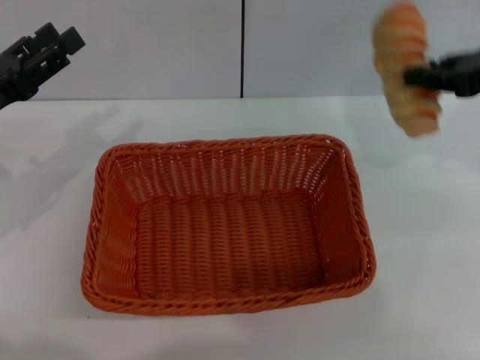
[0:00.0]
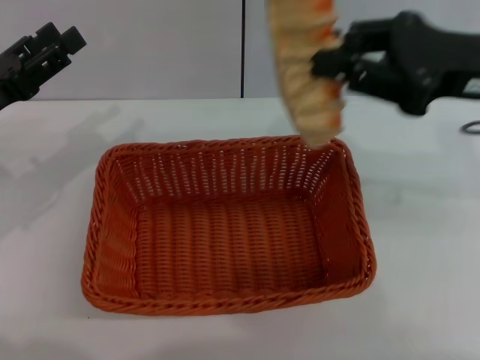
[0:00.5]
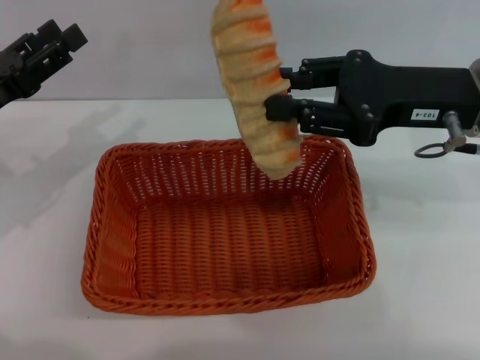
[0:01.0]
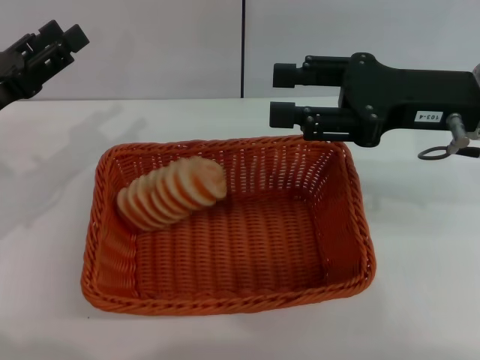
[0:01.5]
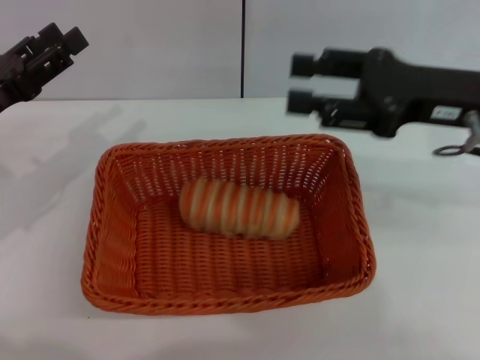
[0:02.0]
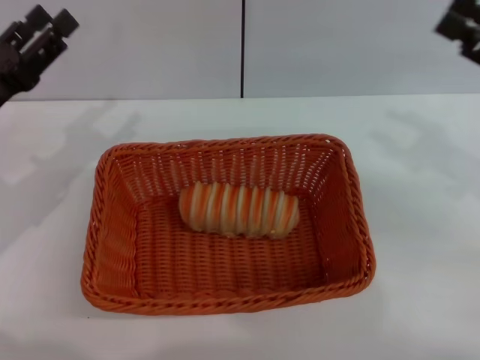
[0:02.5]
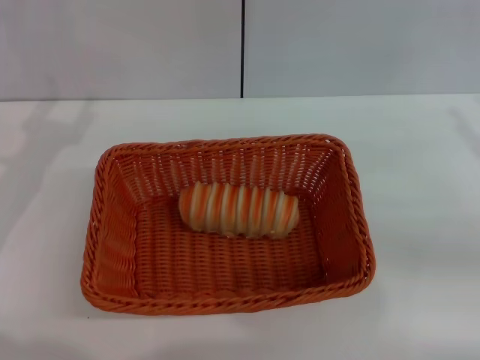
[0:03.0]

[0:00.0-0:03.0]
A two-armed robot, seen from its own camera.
Step, 0:00.0 to 0:01.5: Place the long bread into the light basket with the right gripper.
0:00.0 to 0:01.5: The right gripper heads to the left, covering about 10 cm, and opens its fingers.
0:01.5 to 0:03.0: The right gripper heads to the right, covering approximately 15 cm.

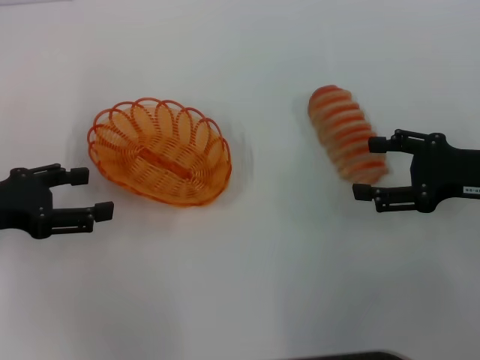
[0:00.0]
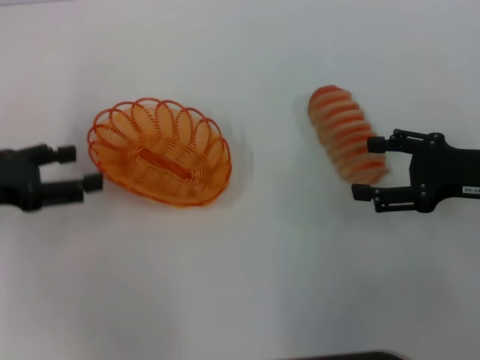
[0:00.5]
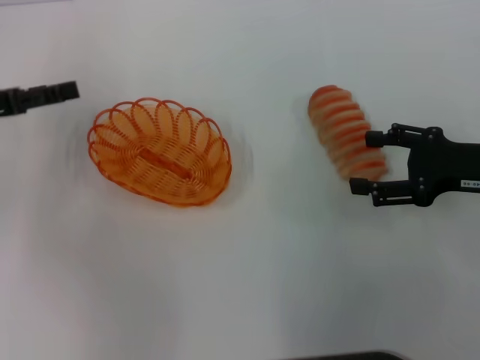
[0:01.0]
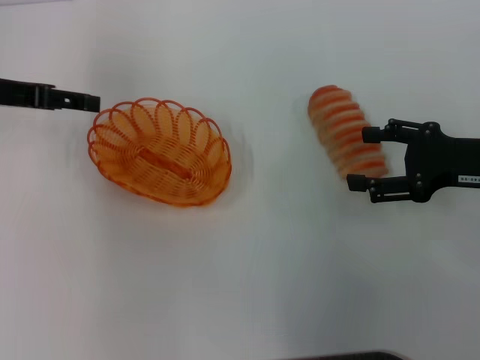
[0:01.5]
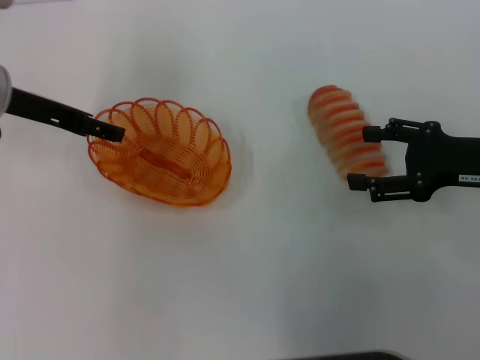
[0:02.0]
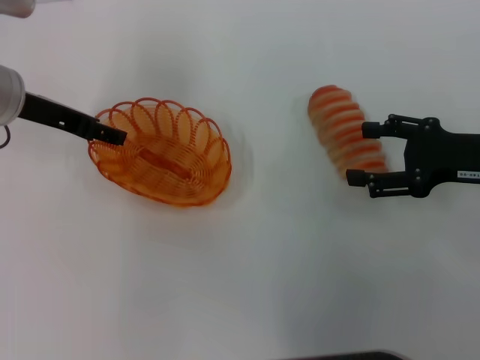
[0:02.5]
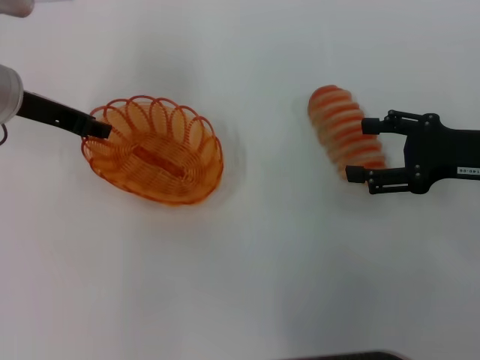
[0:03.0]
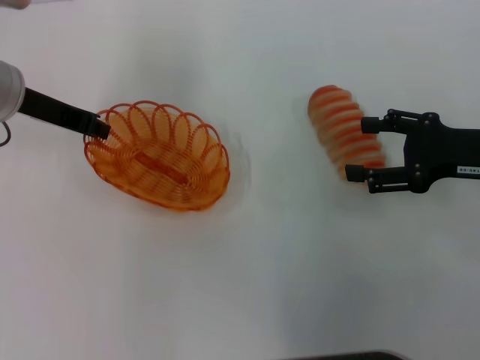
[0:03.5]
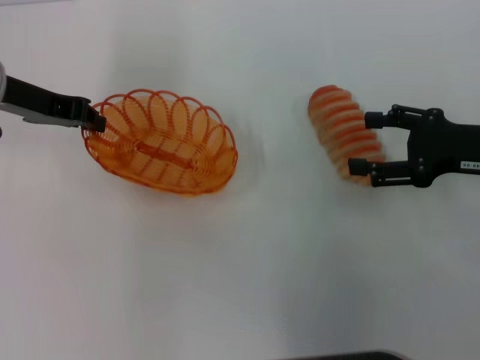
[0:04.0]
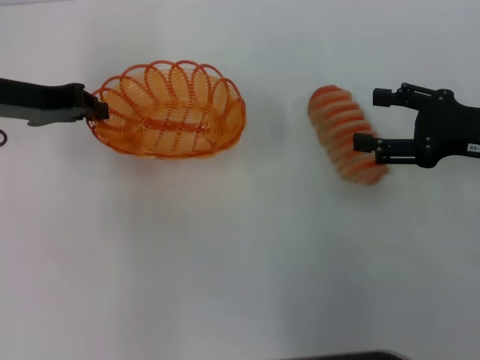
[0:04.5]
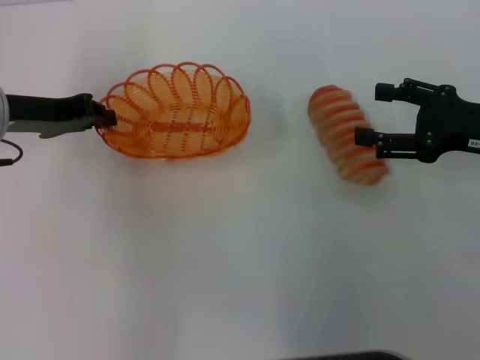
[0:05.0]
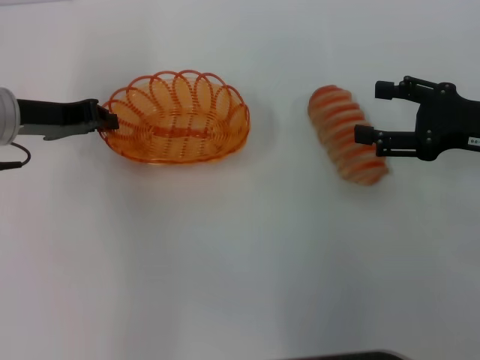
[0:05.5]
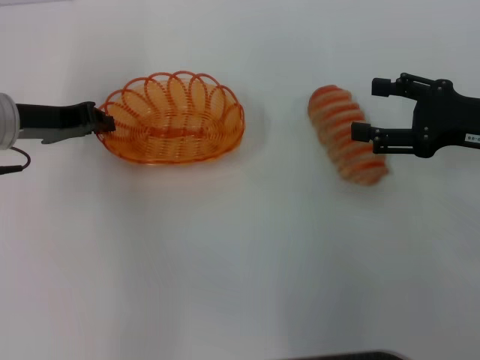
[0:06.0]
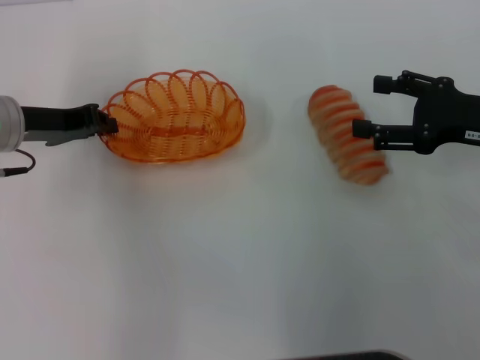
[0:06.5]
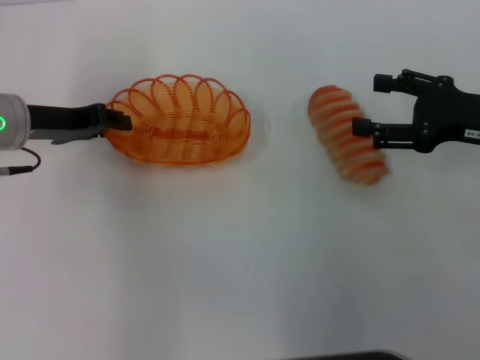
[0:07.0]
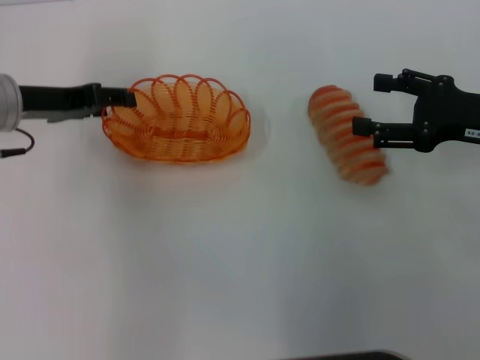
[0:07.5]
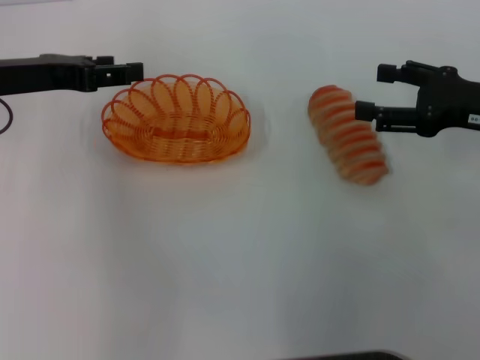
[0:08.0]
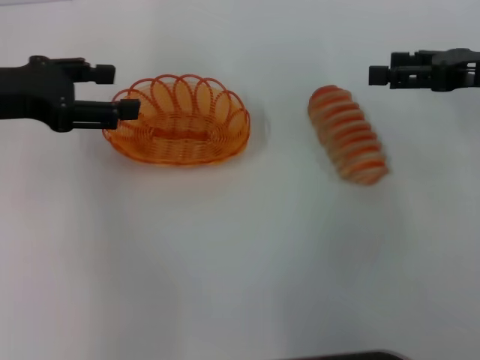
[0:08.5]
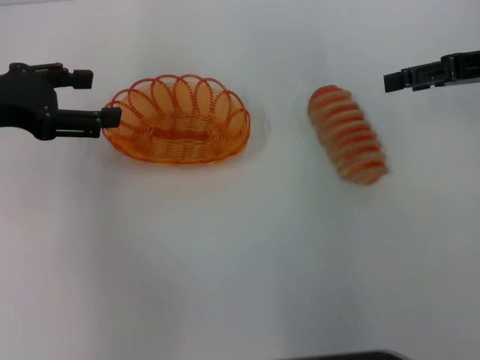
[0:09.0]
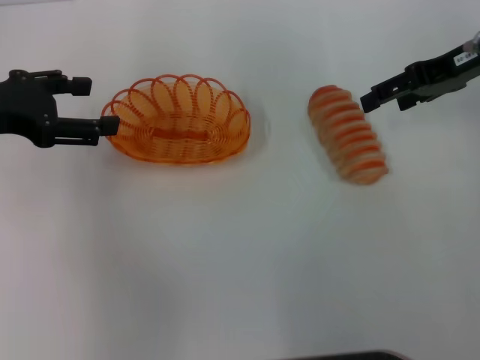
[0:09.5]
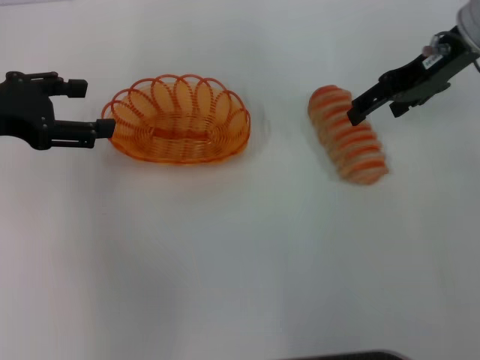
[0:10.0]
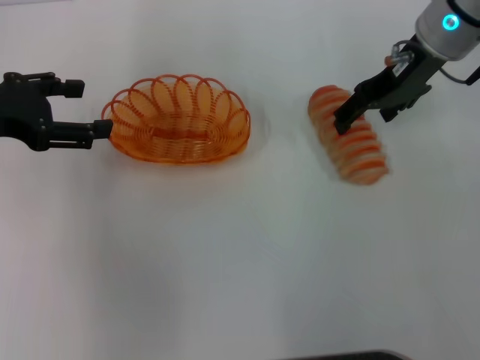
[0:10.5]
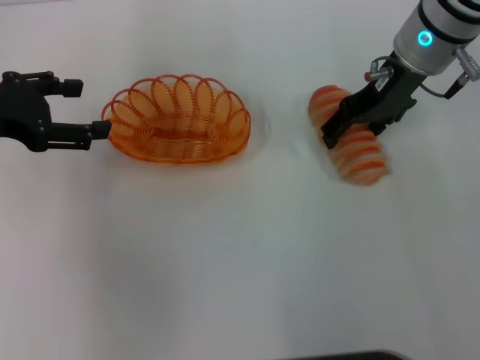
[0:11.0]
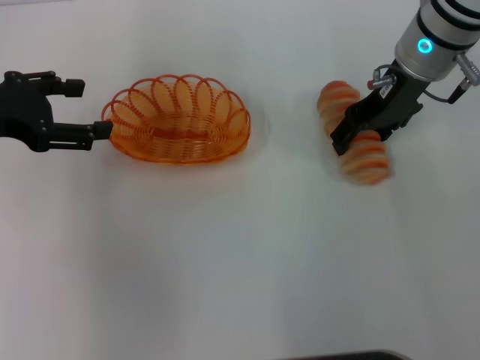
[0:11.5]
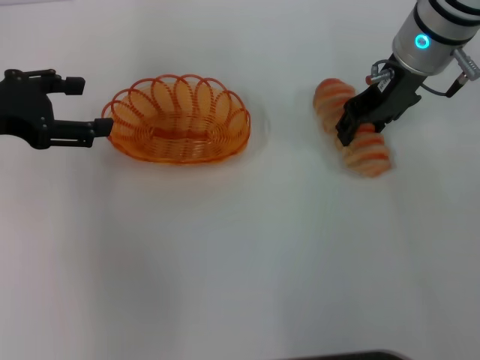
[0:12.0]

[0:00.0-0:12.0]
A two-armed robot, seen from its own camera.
Step, 0:00.0 to 0:04.0: Pick up the basket with the left gripper.
Step, 0:05.0 to 0:07.5: Place the basket in the center of view with the left gripper.
0:00.0 to 0:02.0: The left gripper goes about 15 cm forward and to the right.
0:02.0 to 0:04.0: The left gripper closes its fingers.
0:04.0 to 0:06.0: The left gripper moves downward, approximately 5 cm.
0:06.0 to 0:08.0: The left gripper opens its fingers.
0:08.0 to 0:10.0: The left gripper ends up some 5 cm from where it was. Meanwhile the right gripper travels forward, upward and to the left by some 15 cm.
0:10.0 to 0:12.0: The right gripper moves to the left, approximately 5 cm, and closes.

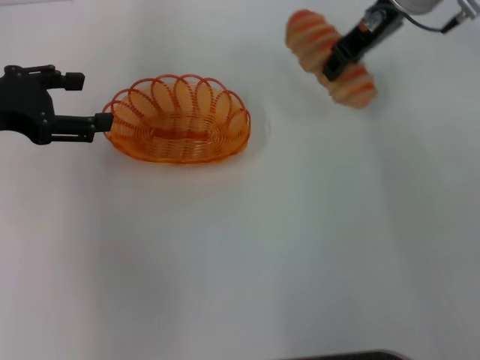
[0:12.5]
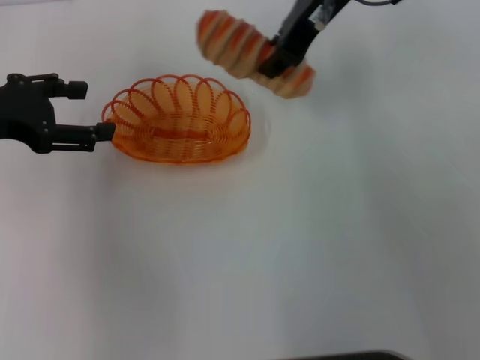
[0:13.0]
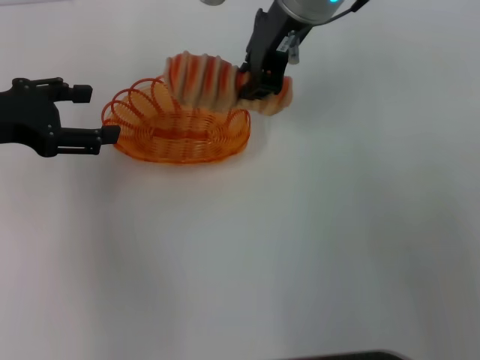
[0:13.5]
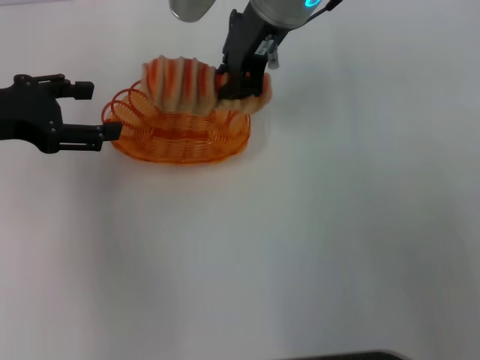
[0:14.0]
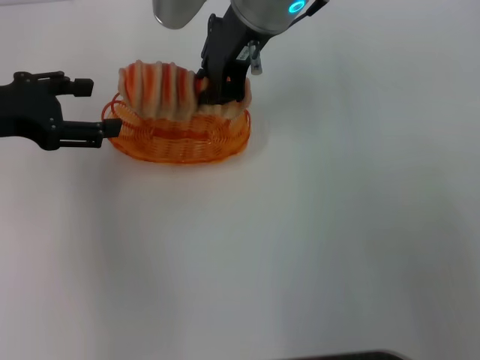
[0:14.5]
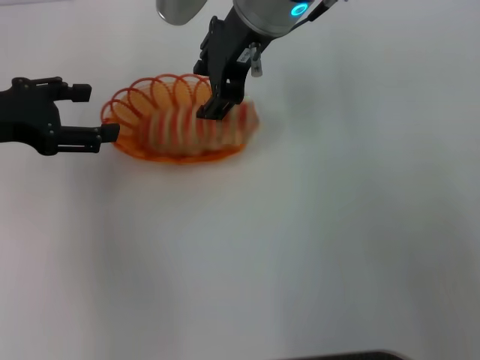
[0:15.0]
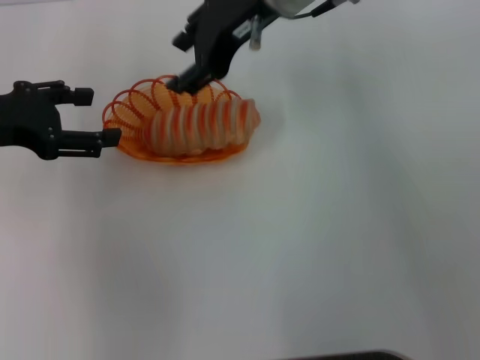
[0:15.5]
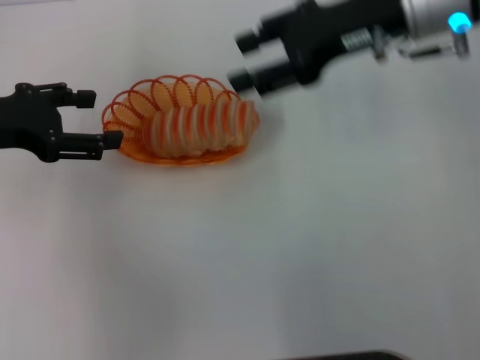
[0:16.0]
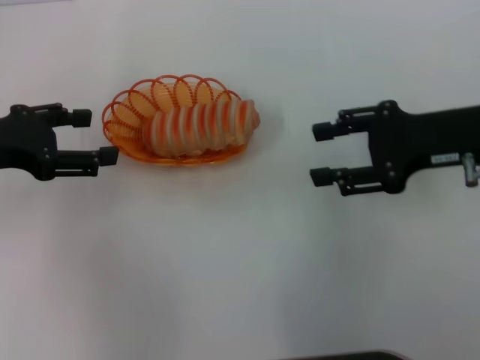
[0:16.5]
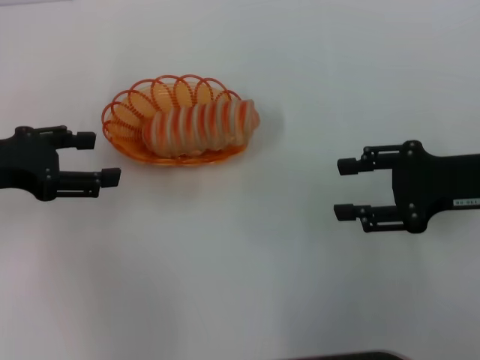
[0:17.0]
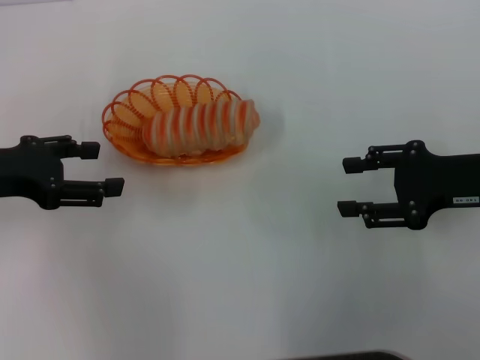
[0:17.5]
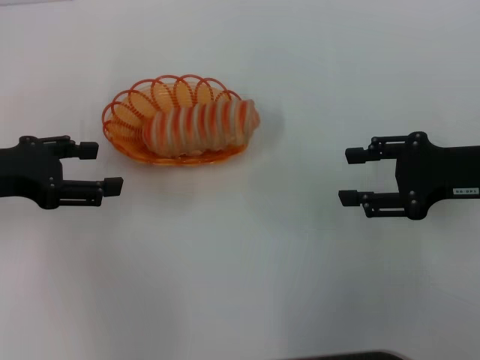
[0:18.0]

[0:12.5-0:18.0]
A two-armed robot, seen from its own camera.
Step, 0:12.5 to 0:15.5: Place the long bread into the basket with the right gripper.
0:12.5 to 0:14.5: The right gripper travels to the left by roughly 15 cm.
0:14.5 to 0:16.0: The right gripper goes roughly 15 cm to the right, and opens.
0:16.0 to 0:18.0: The right gripper heads backward, to the right and downward, covering about 20 cm.
